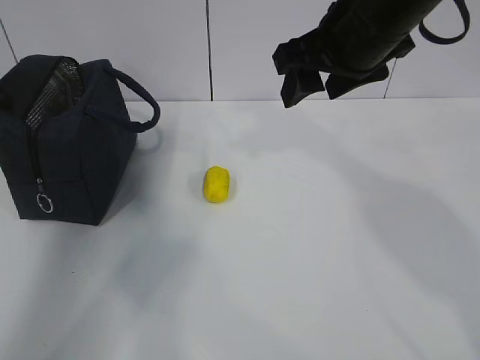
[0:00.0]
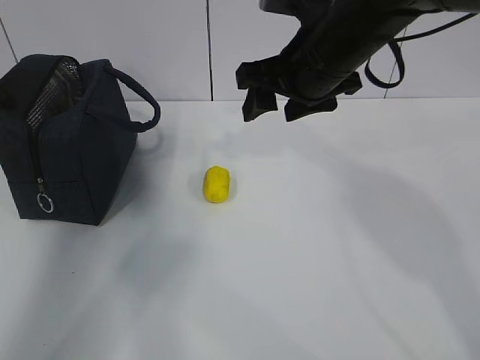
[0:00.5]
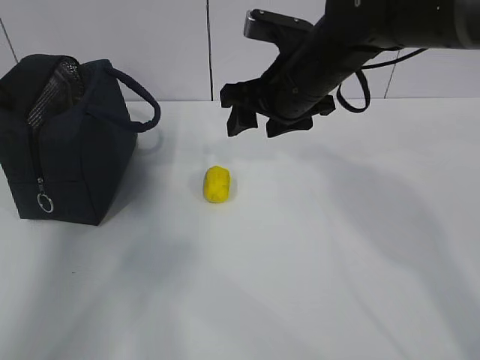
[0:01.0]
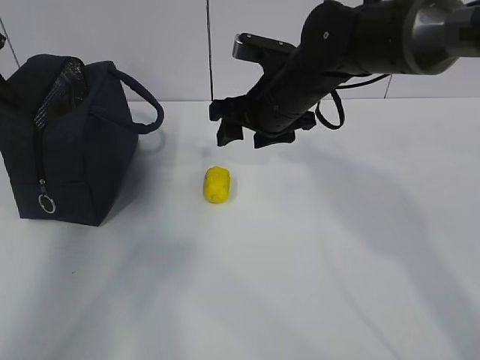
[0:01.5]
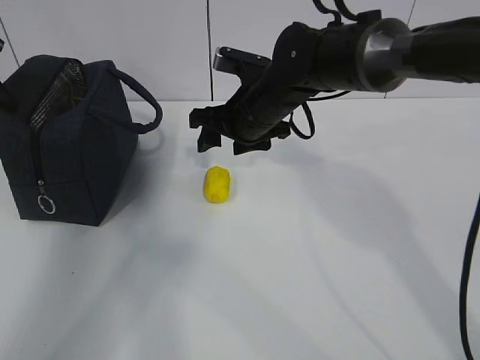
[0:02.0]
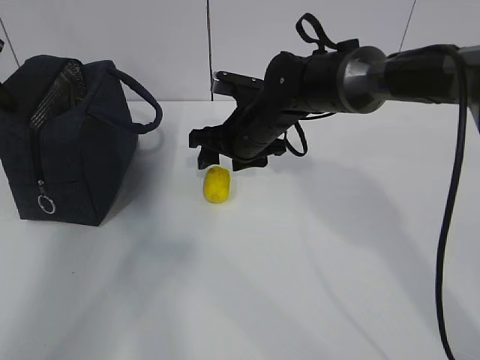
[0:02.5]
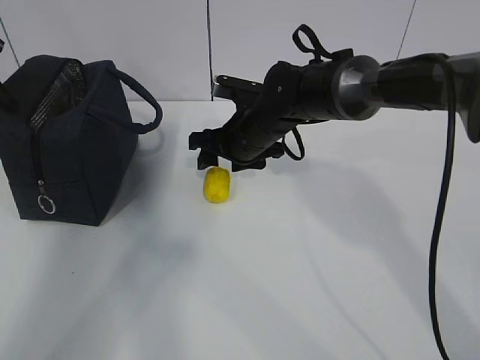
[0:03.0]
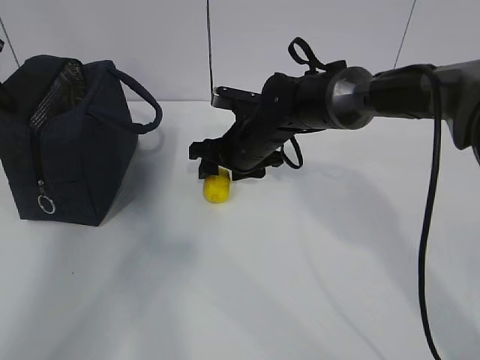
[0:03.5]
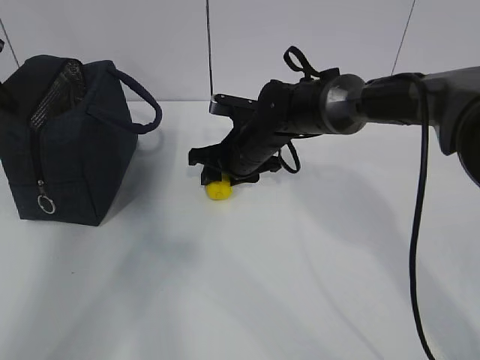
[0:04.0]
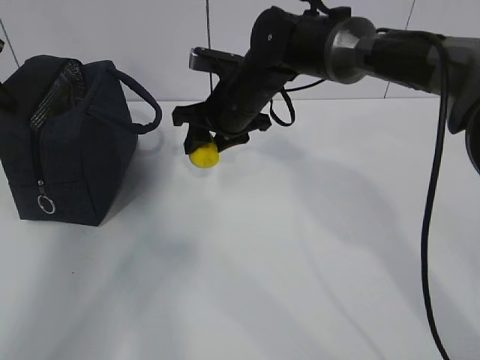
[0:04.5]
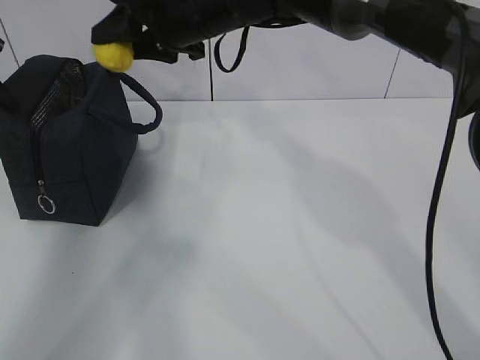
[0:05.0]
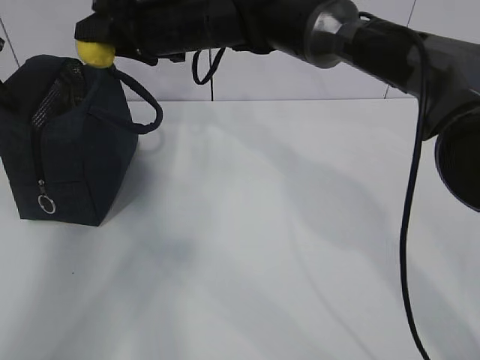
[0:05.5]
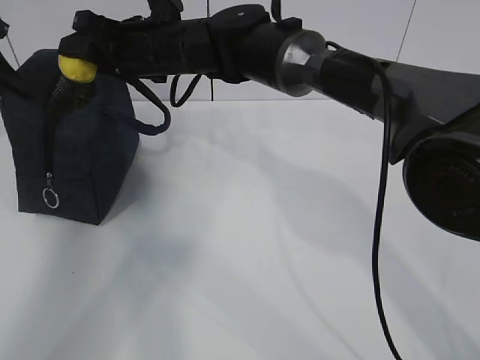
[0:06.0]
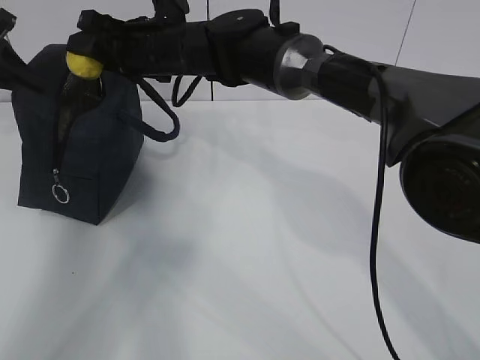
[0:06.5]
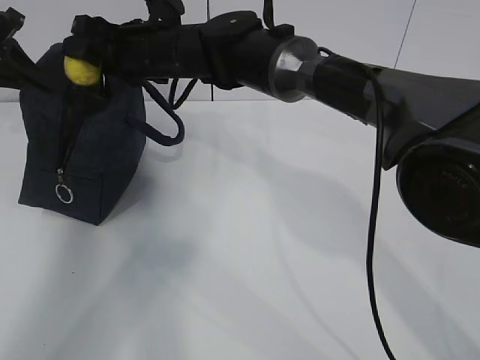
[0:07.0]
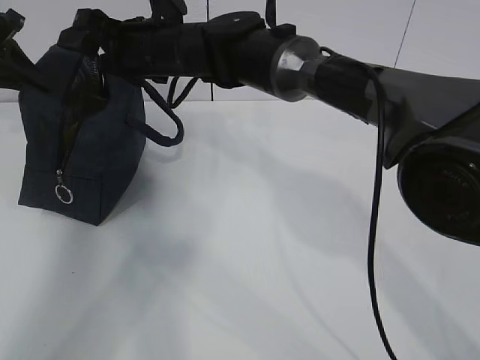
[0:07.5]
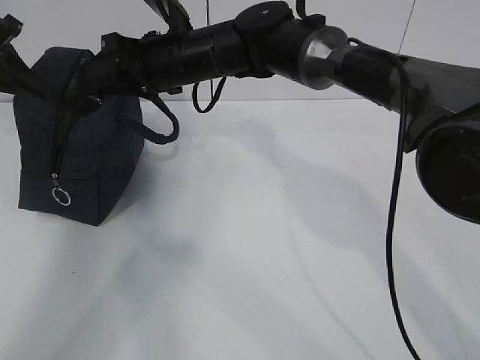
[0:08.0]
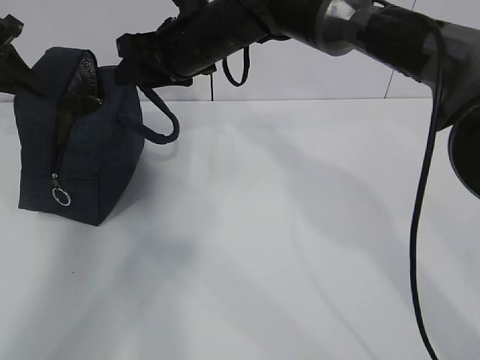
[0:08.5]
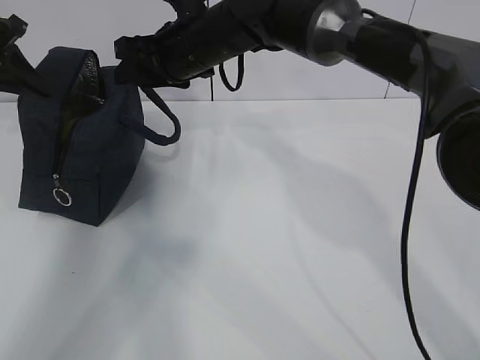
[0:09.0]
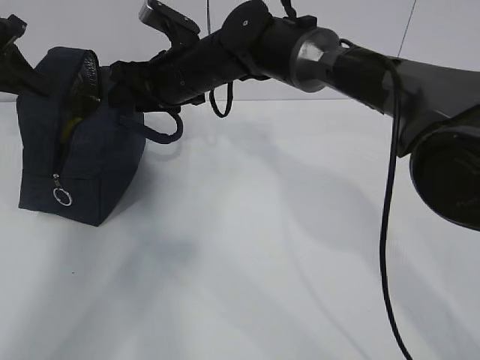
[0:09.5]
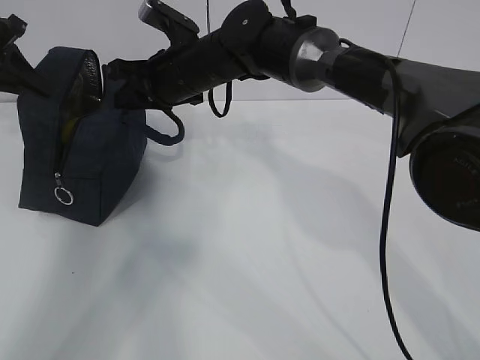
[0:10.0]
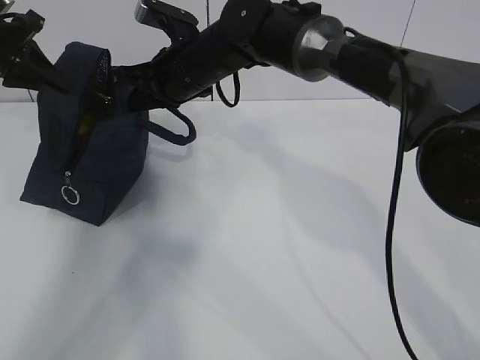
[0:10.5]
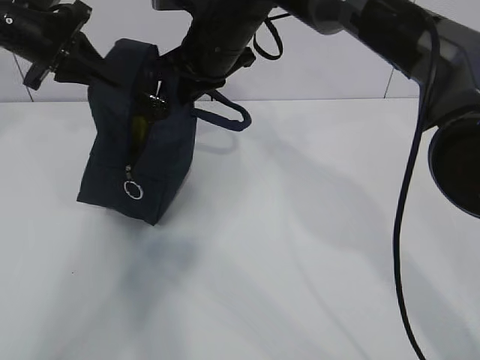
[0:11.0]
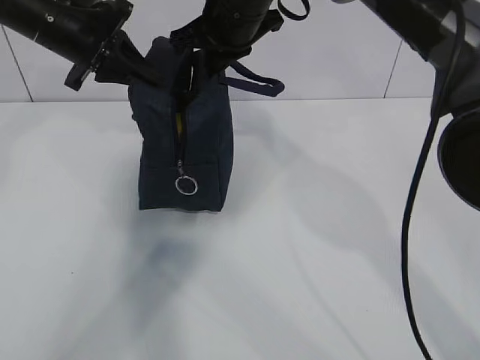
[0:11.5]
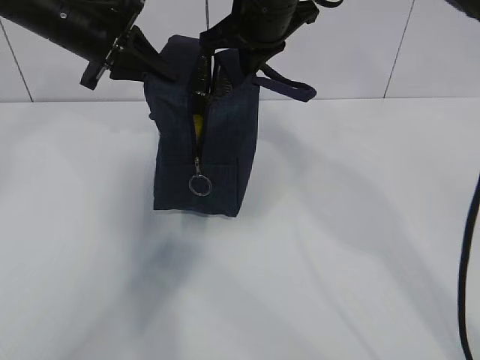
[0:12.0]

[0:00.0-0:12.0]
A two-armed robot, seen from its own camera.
Step, 0:00.5 to 0:02.5: Grab the lunch bag with your right hand.
Step, 0:03.0 to 0:05.5: Move the lunch bag to the right.
0:00.0 to 0:02.0: The right gripper heads downward, forward and to the left, covering about 20 cm.
0:02.0 to 0:04.0: The right gripper travels downward by about 5 cm.
0:04.0 to 0:06.0: The right gripper shifts approximately 15 cm upward and to the left.
0:06.0 to 0:08.0: The grippers stay close to where they were, moving slightly.
0:08.0 to 0:10.0: The right gripper closes.
0:10.0 to 0:12.0: The right gripper is displaced upward and to the right by approximately 15 cm, while the left gripper travels to the right by some 15 cm.

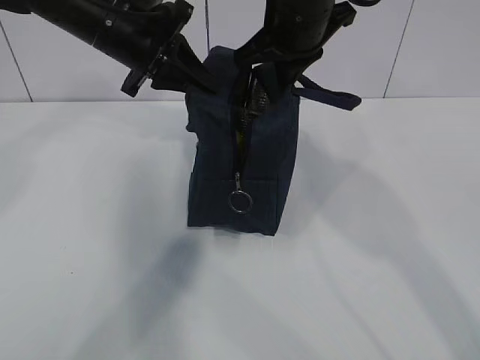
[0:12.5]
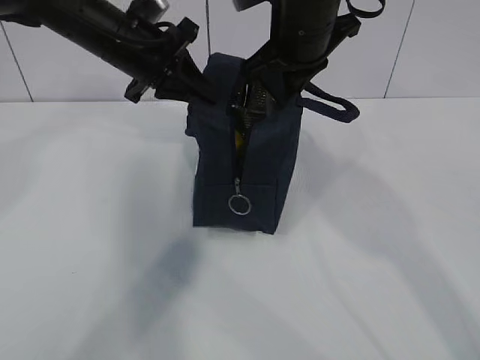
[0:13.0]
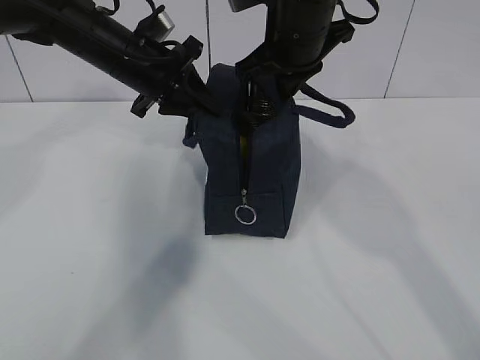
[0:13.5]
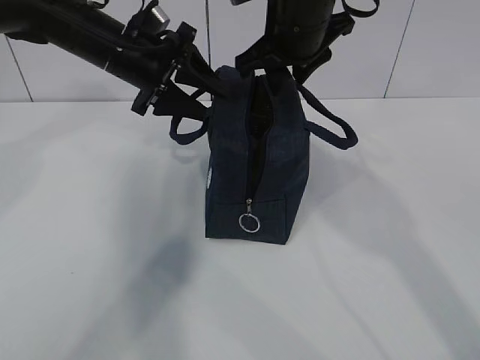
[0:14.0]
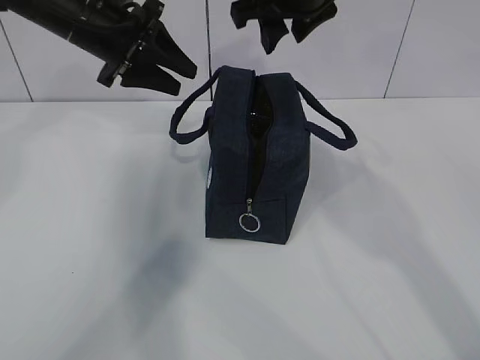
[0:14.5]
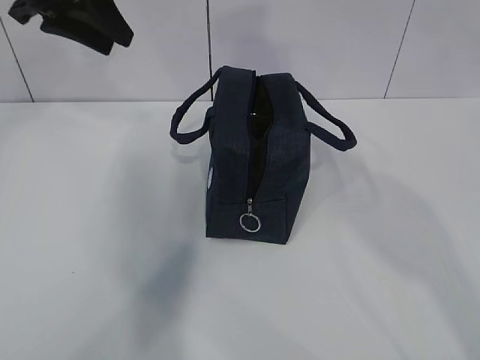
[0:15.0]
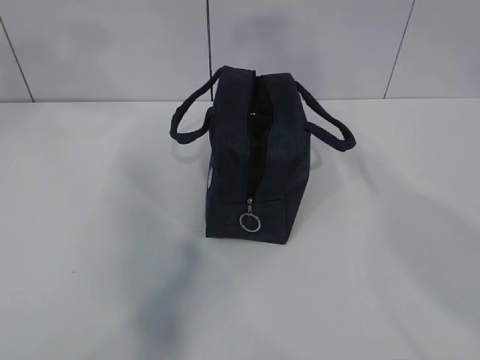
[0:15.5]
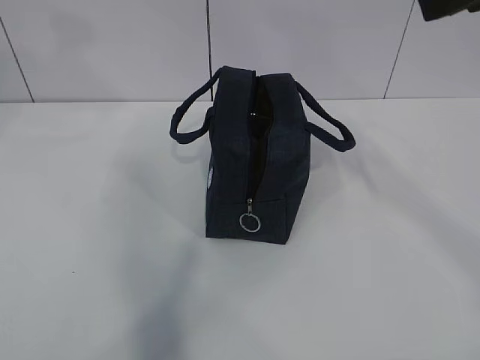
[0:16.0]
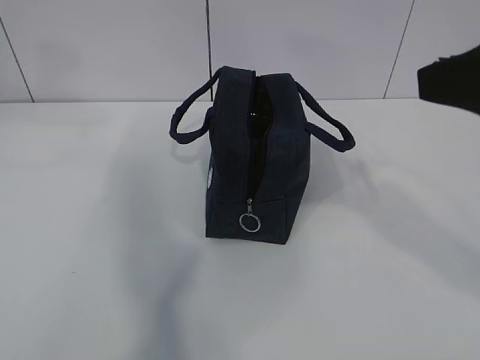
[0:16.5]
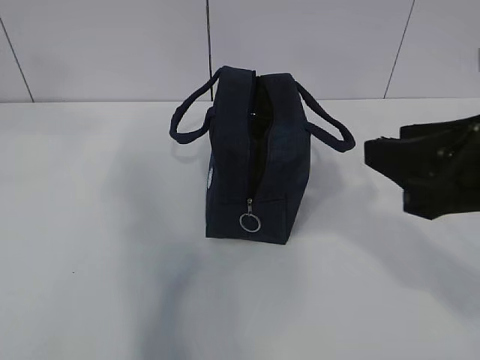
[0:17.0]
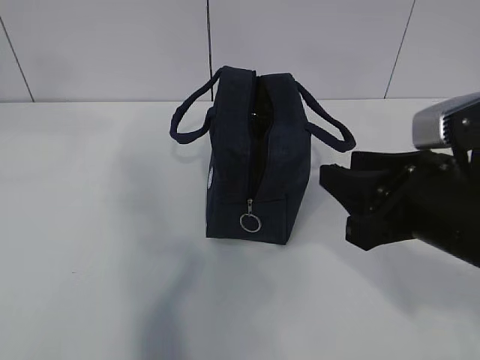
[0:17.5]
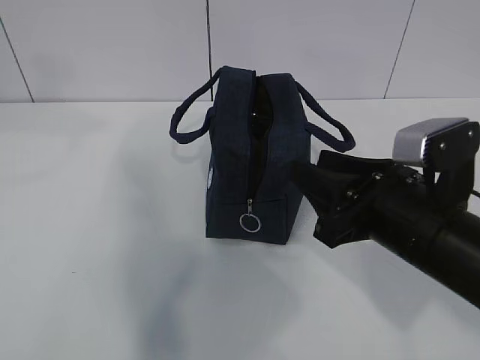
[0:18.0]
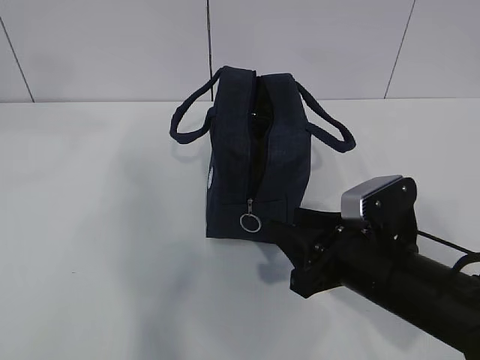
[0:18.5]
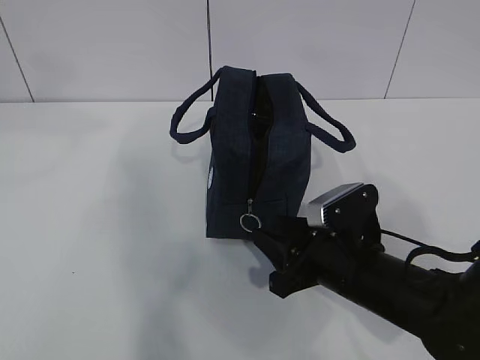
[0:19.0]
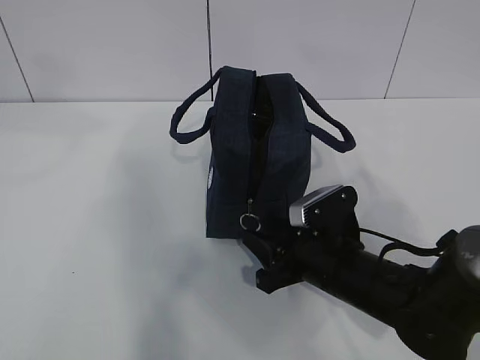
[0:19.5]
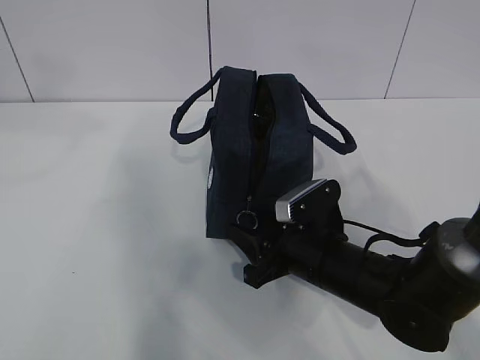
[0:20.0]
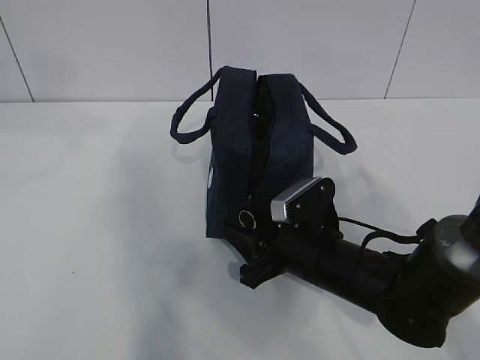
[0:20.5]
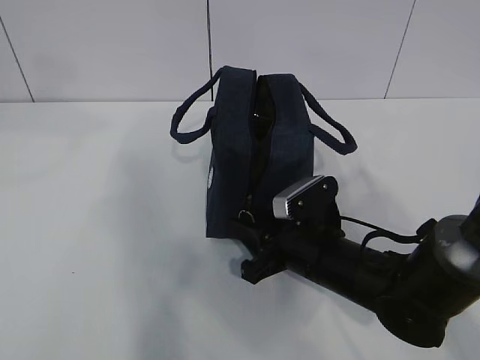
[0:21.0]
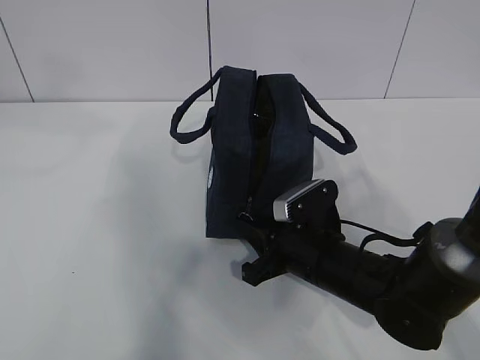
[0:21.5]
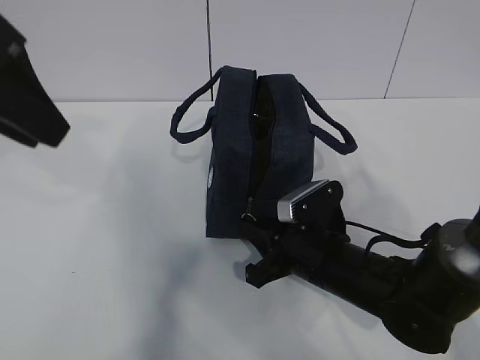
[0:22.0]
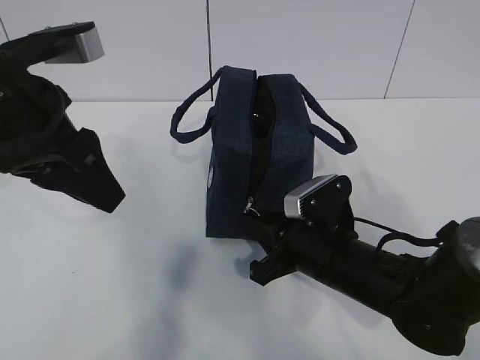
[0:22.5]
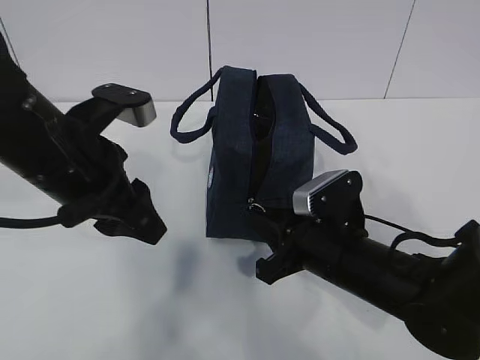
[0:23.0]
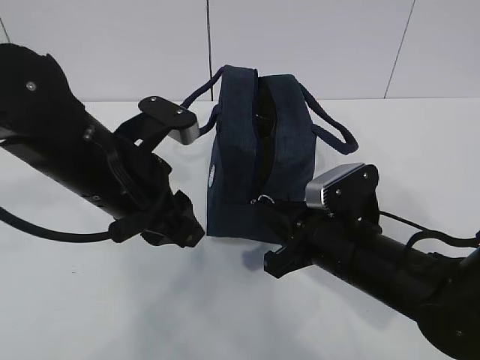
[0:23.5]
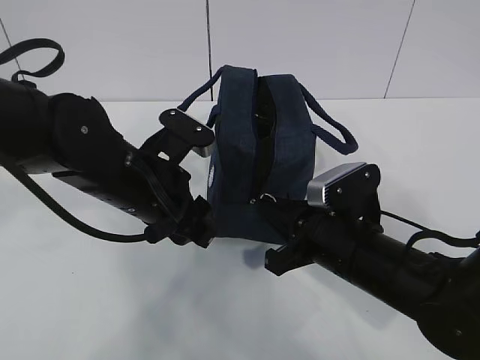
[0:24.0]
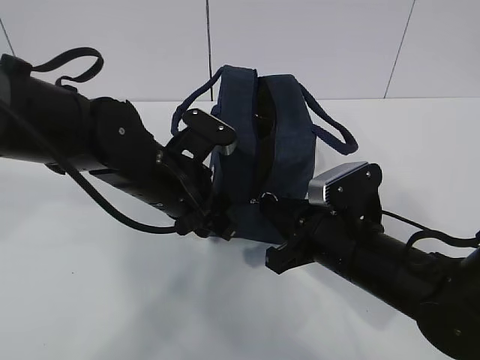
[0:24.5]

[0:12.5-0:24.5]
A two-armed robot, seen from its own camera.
Step, 0:12.5 to 0:17.5: Grab the lunch bag with your left hand.
Step, 0:18.0 to 0:22.0: Pull the zipper with your right hand.
0:12.5 to 0:14.5: The right gripper opens up. The left gripper opens.
0:14.5 to 0:16.5: The right gripper moves backward and to the right, roughly 25 cm. The left gripper moves upward and backward, some 30 cm.
0:16.5 to 0:18.5: The right gripper travels downward by roughly 25 cm.
0:18.5 to 0:20.5: The right gripper is displaced forward and downward by some 5 cm.
0:20.5 to 0:22.5: The right gripper closes. The left gripper moves downward, approximately 20 cm.
0:22.5 to 0:24.5: The left gripper goes approximately 20 cm downward, to the right and forward.

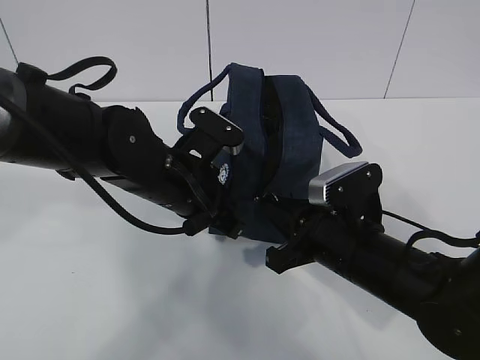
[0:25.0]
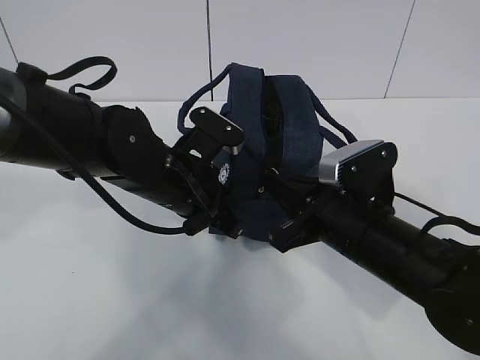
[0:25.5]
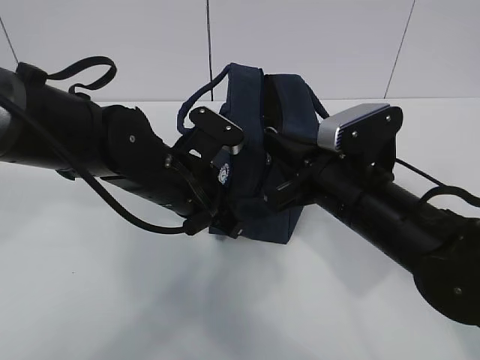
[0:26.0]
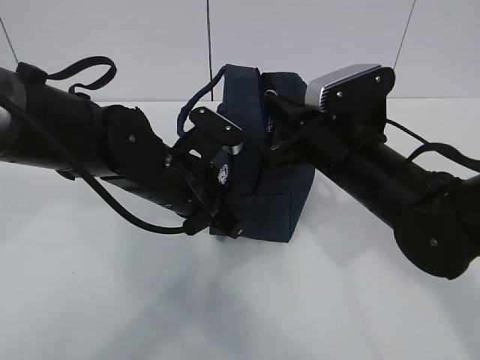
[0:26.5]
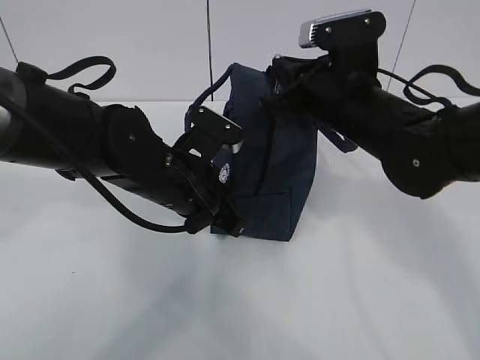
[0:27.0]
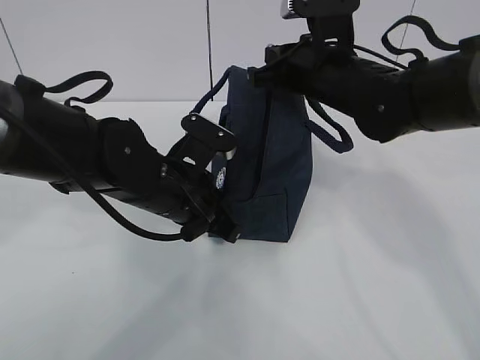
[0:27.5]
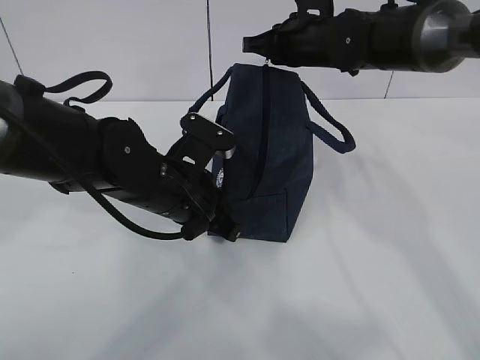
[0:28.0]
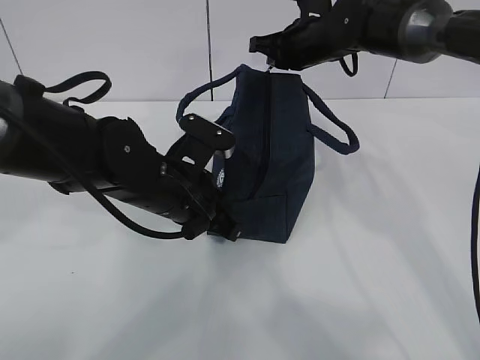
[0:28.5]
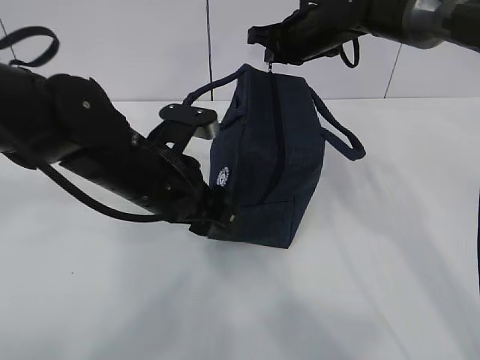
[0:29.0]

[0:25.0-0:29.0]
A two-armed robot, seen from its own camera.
0:25.0 to 0:27.0: The right gripper is displaced upward and forward by about 15 cm.
0:27.0 to 0:29.0: The left gripper opens. The right gripper heads forward, covering approximately 15 cm.
